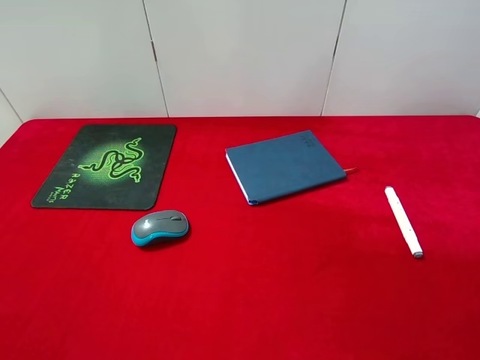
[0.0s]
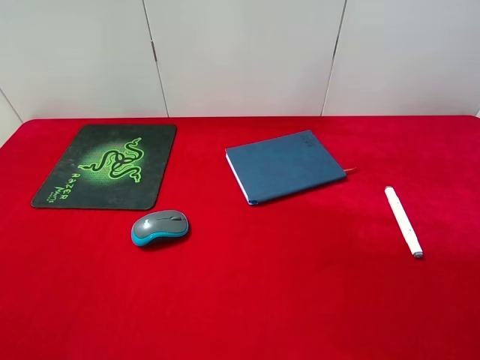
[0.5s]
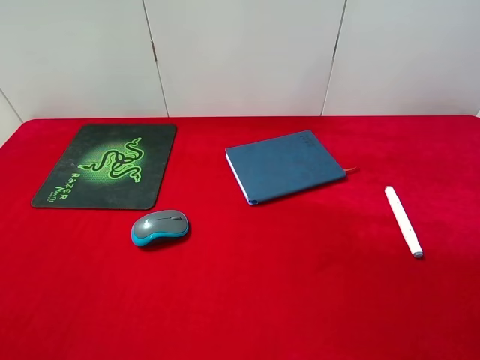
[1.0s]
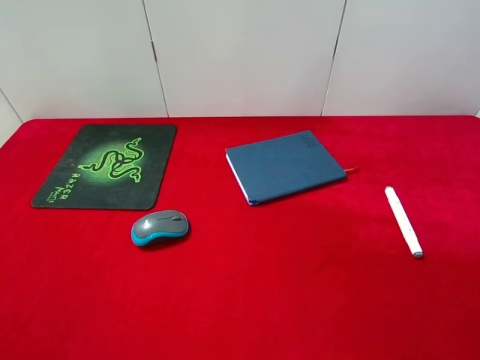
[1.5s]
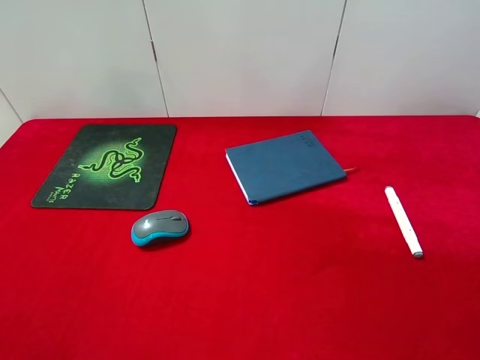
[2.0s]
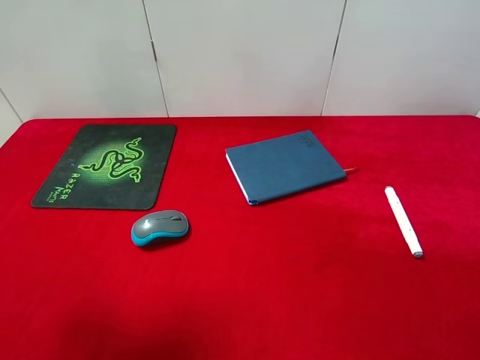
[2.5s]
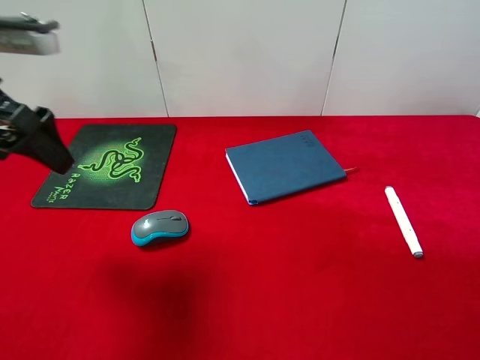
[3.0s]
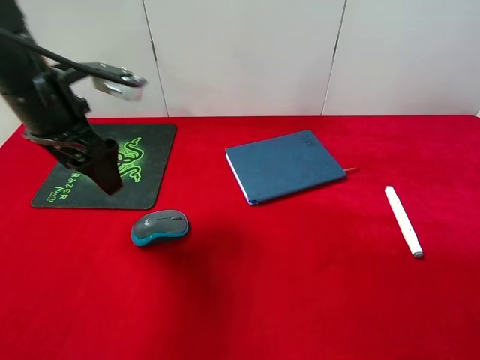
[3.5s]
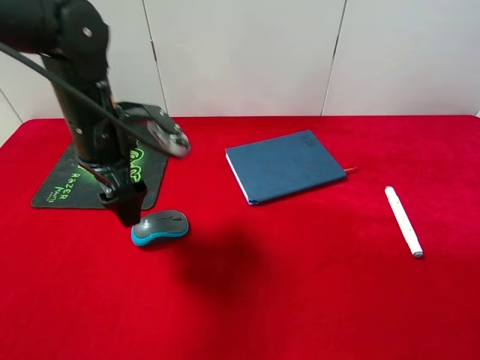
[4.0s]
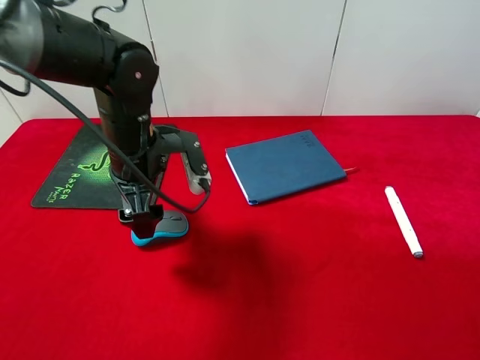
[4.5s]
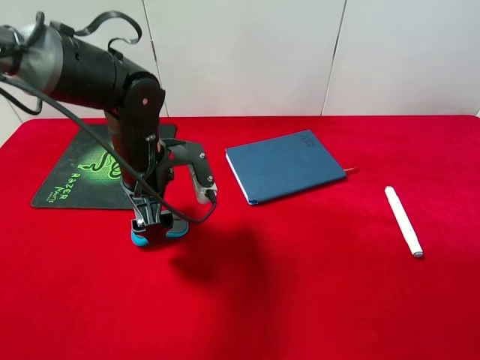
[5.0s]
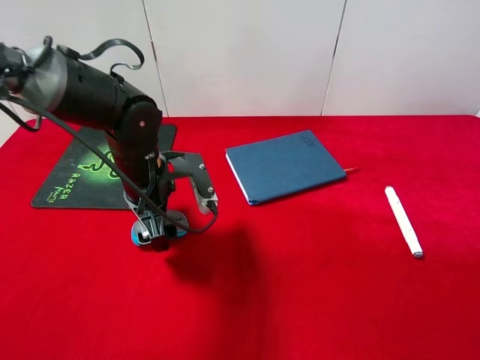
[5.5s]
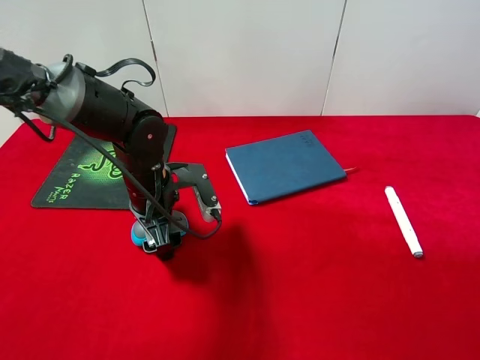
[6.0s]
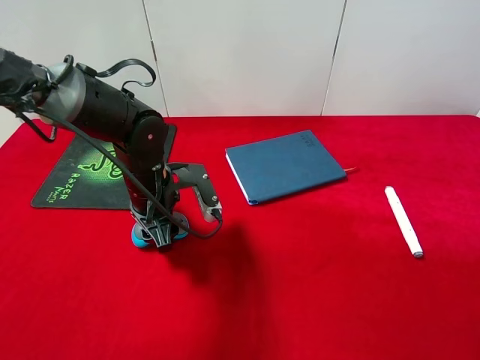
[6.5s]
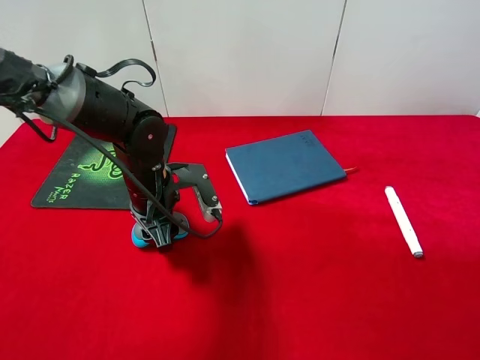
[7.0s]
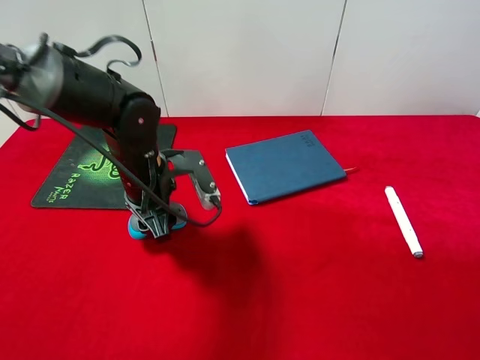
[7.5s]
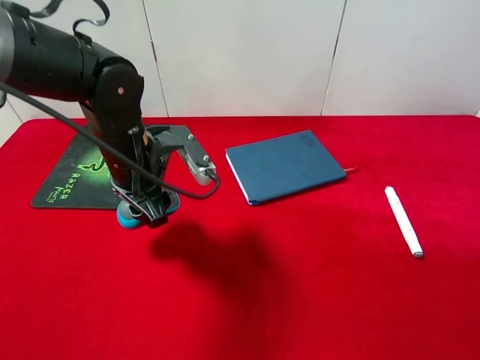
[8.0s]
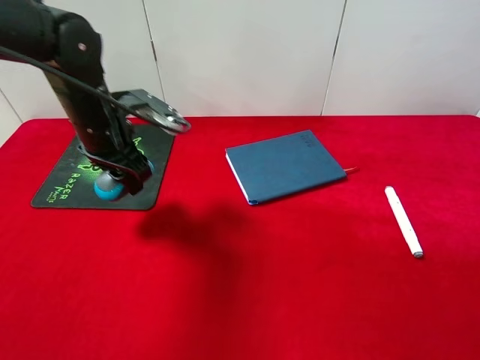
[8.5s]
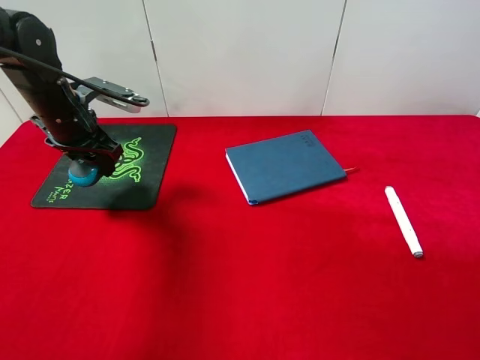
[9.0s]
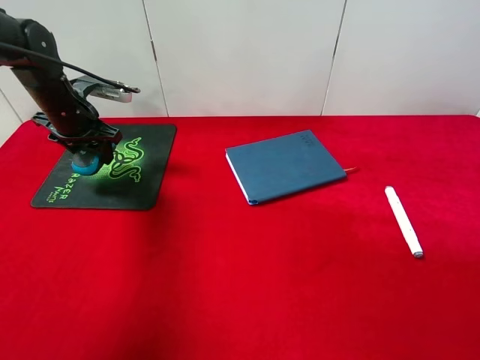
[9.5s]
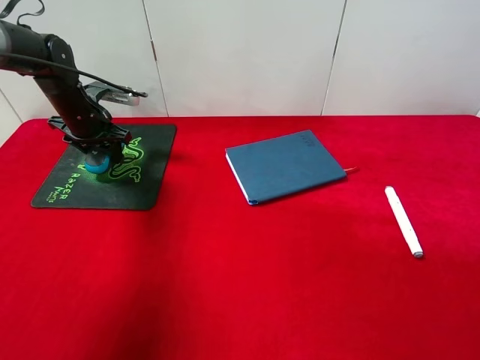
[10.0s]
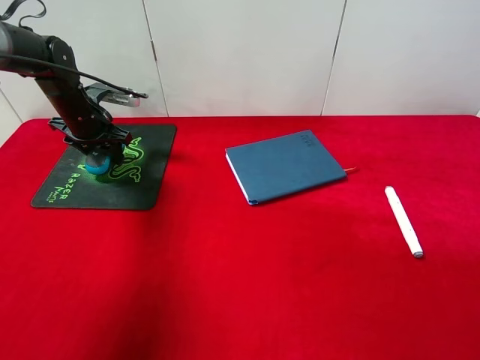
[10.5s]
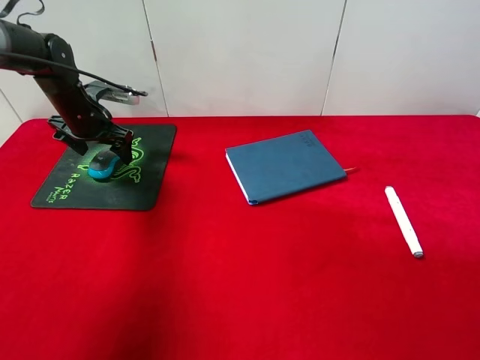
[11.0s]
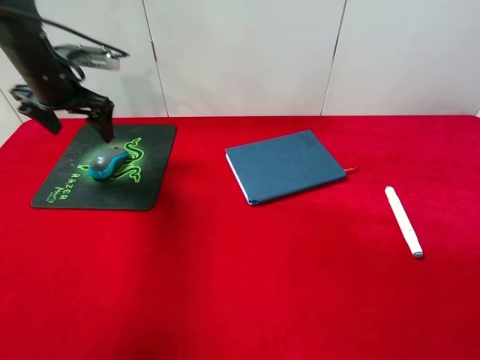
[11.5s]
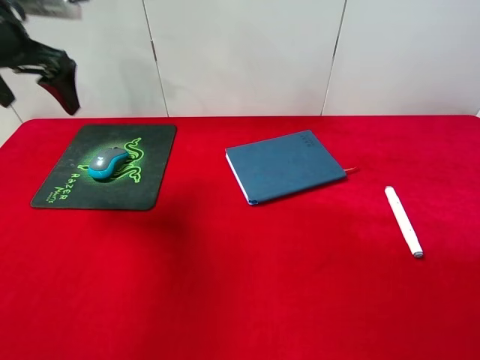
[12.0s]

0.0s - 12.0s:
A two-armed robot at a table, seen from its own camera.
Step, 0.0s - 8.0s: Pick up the mouse with left gripper.
Step, 8.5s - 11.0s: Place the mouse on the mouse pad with left gripper.
2.0s - 4.0s: The left gripper travels forward, to the right and downward by about 30 cm.
4.0s - 6.0s: The left gripper heads downward, covering about 10 cm.
6.0s - 8.0s: The left gripper moves upward, roughly 5 cm, and closes its fingers.
8.0s - 10.0s: The left gripper shifts approximately 20 cm forward and to the left.
10.0s - 12.0s: The left gripper moves upward and backward, about 20 cm, and opens up.

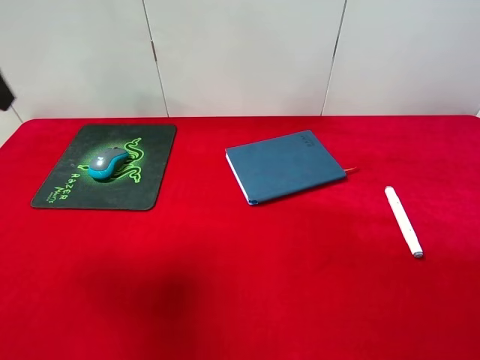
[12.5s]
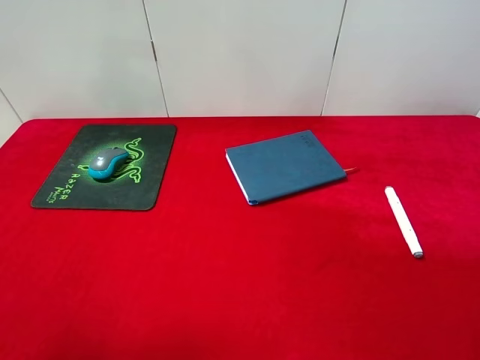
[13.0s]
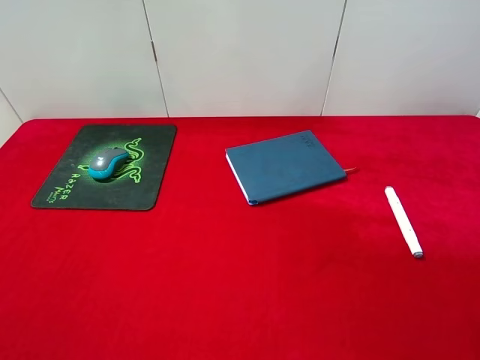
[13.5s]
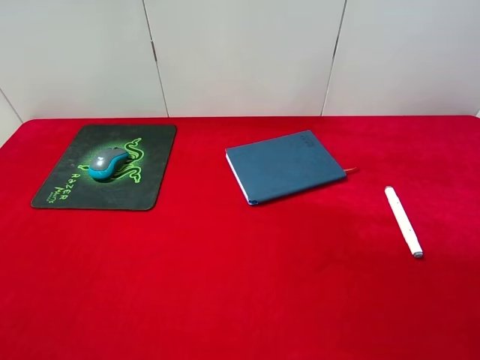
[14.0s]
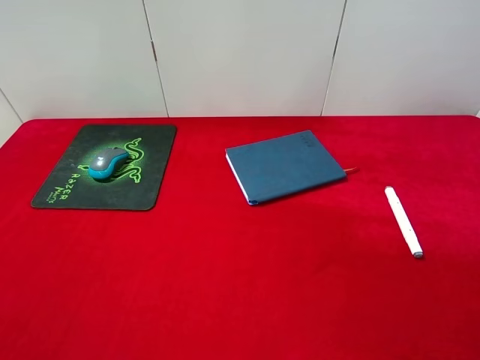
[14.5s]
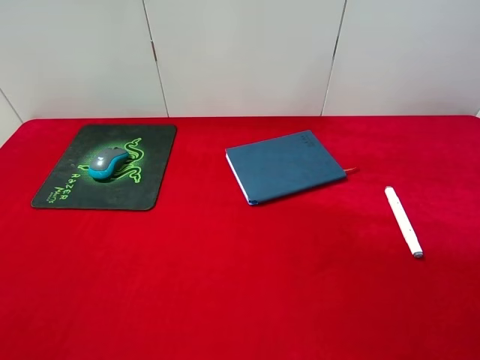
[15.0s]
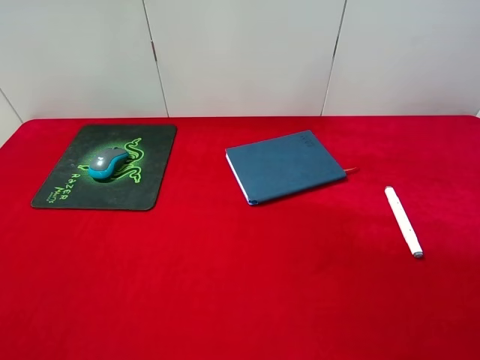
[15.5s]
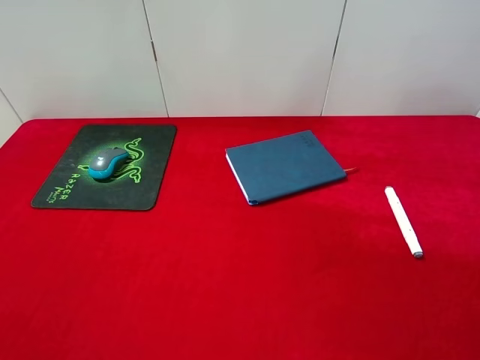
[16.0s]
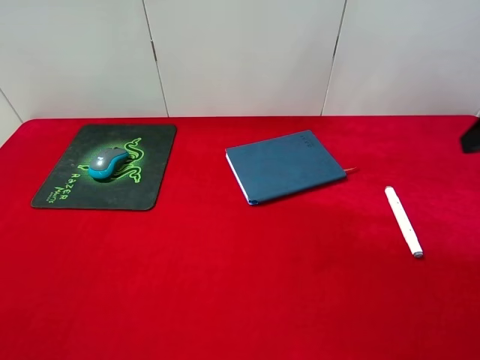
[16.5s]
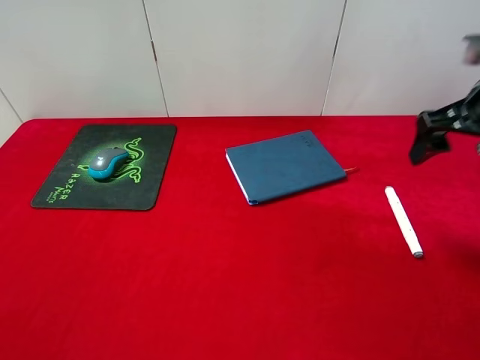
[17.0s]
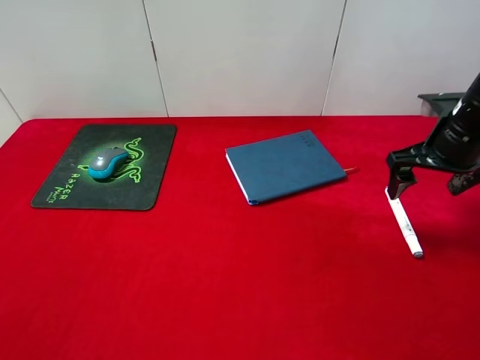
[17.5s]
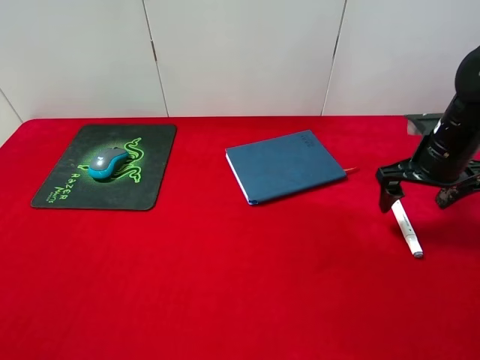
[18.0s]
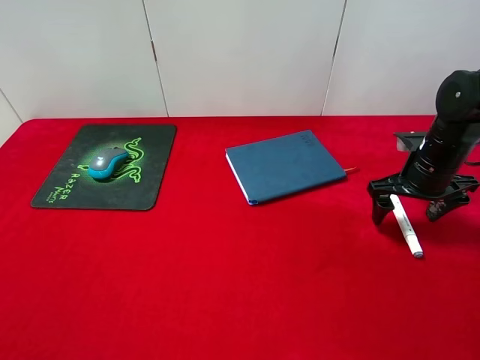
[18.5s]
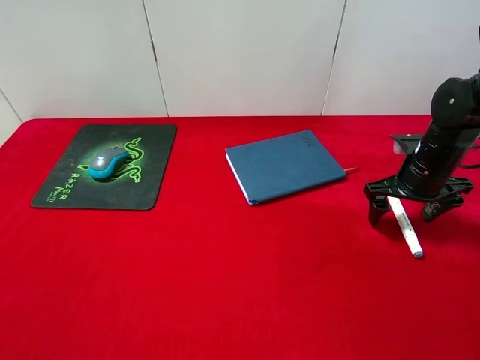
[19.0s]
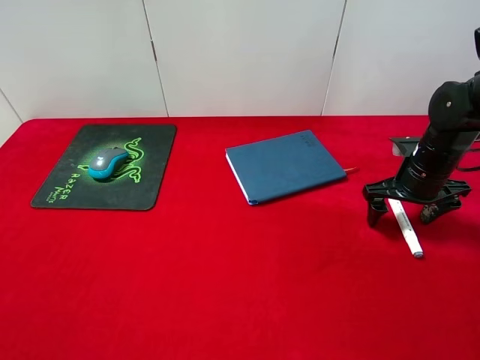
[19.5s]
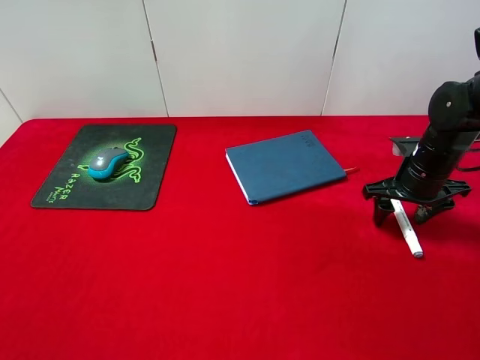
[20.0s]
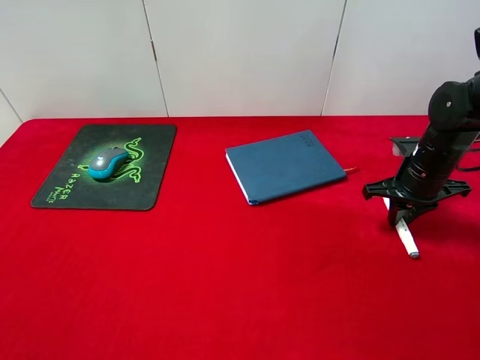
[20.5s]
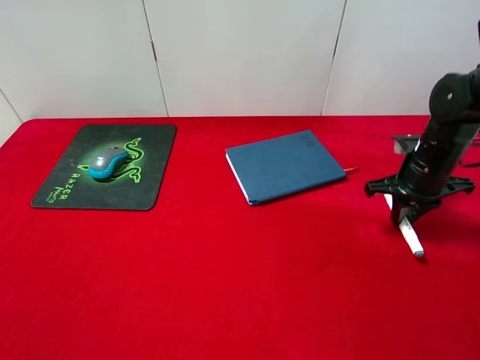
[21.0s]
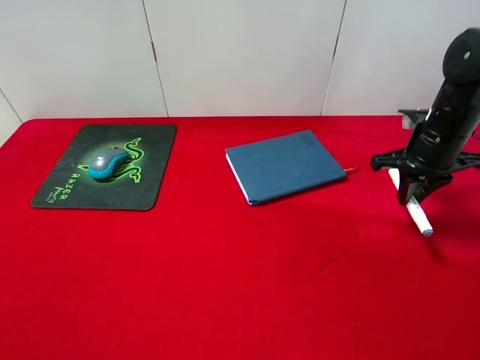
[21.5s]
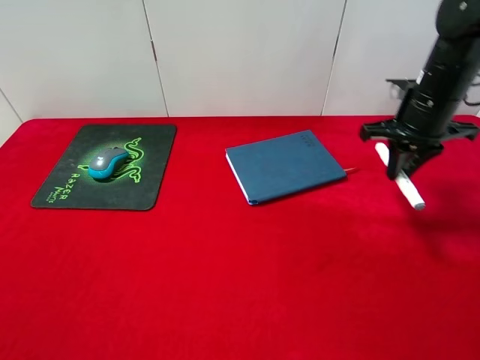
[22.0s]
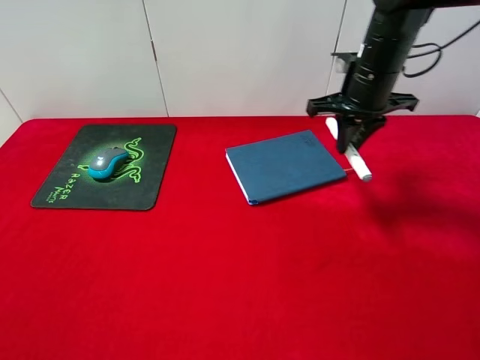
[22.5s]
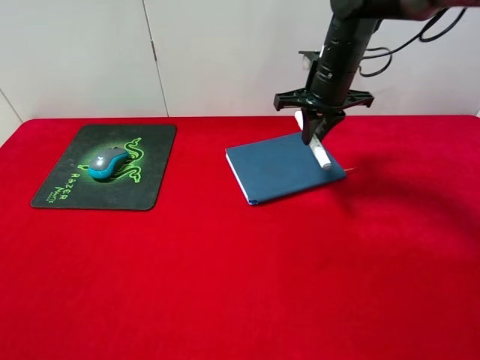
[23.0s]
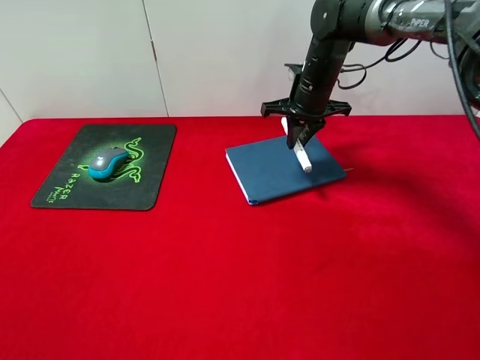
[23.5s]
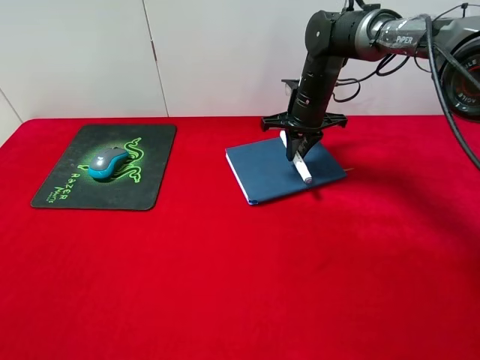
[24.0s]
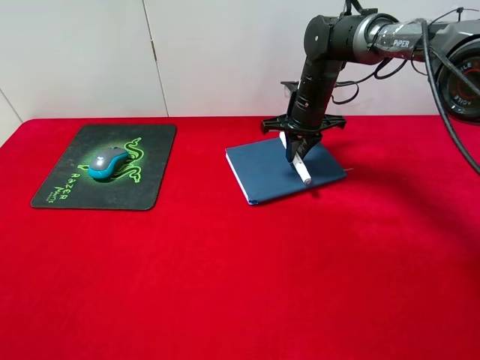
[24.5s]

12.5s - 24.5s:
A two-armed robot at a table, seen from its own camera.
Step, 12.5s - 21.5s: Pick up the marker pen with right gripper.
12.5s - 14.5s: The left gripper moves backward, some 25 cm.
16.5s - 18.5s: The right gripper travels downward and forward by roughly 20 cm.
18.5s - 20.5s: The right gripper closes up.
20.5s - 22.5s: The right gripper heads upward, to the left and forward, covering about 15 cm.
22.5s - 24.5s: The right gripper shifts roughly 15 cm downward, forward and to the left.

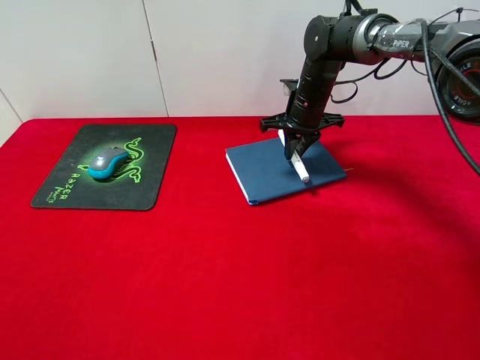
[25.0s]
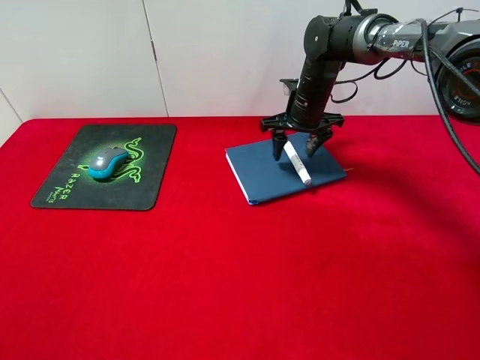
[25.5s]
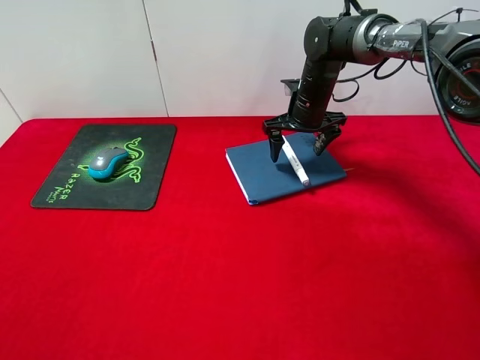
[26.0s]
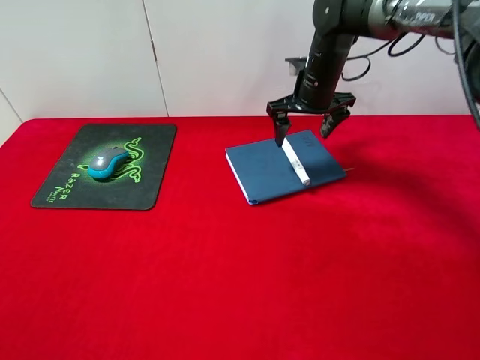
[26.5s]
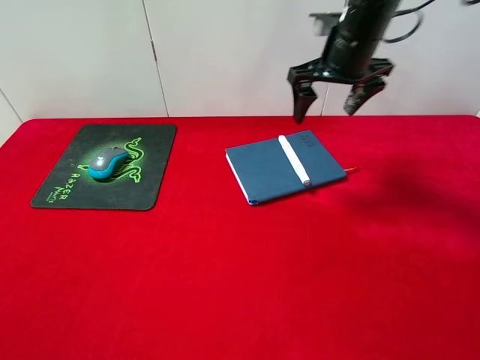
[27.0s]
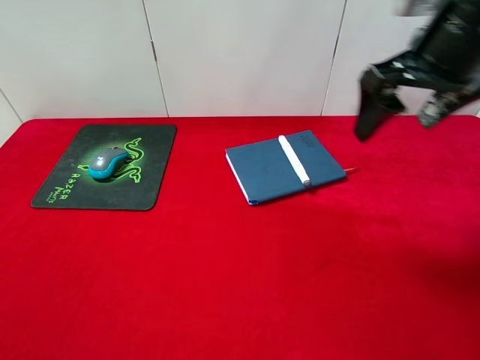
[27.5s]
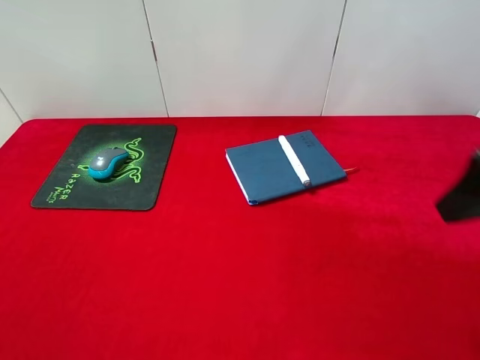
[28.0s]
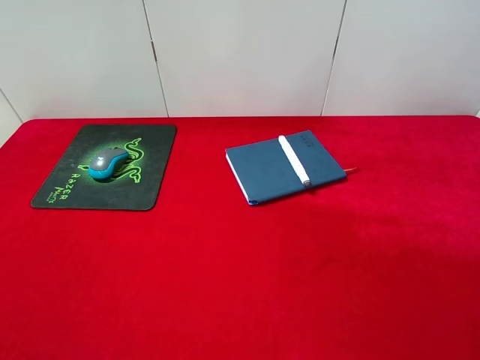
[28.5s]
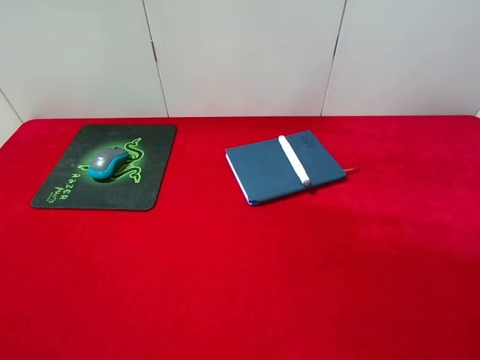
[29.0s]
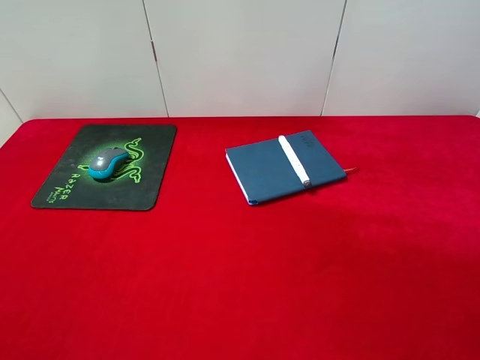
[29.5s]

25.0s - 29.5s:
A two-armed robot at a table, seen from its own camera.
25.0s - 27.0s: The right gripper heads upward and backward, covering roughly 15 cm, and opens its fingers.
27.0s - 29.5s: The right gripper travels backward by approximately 40 cm.
